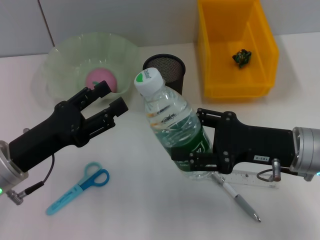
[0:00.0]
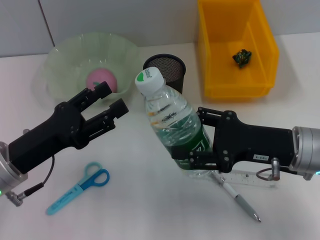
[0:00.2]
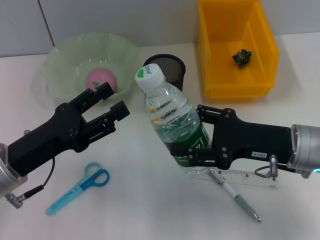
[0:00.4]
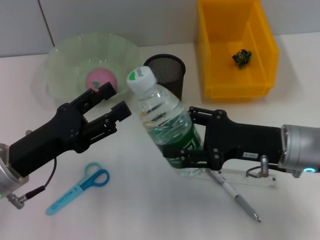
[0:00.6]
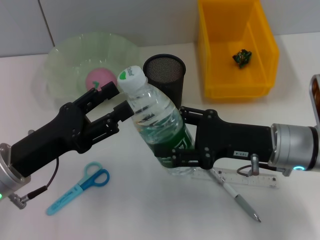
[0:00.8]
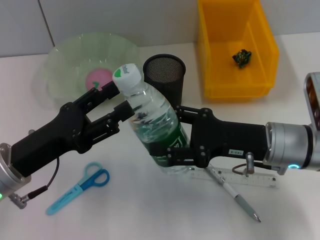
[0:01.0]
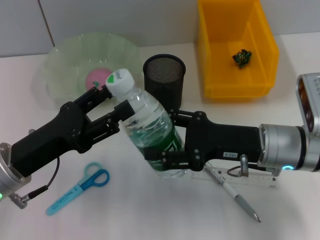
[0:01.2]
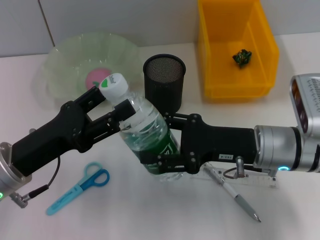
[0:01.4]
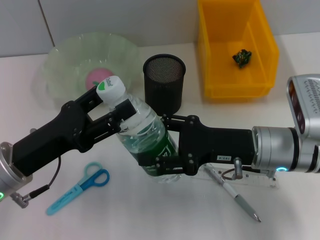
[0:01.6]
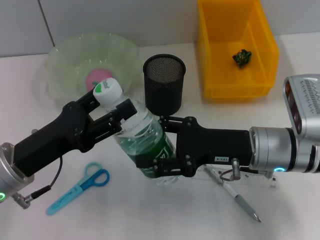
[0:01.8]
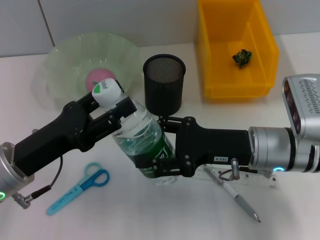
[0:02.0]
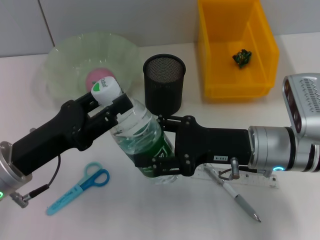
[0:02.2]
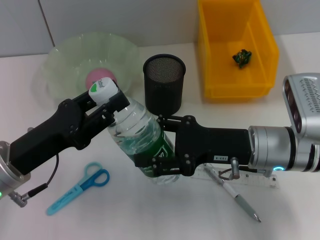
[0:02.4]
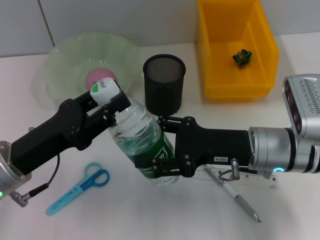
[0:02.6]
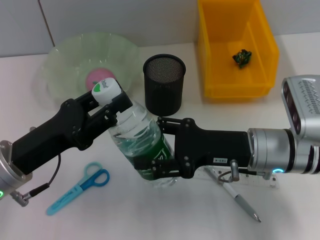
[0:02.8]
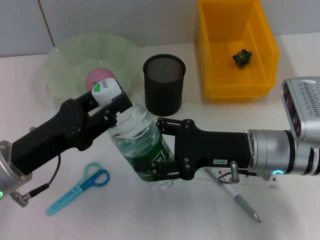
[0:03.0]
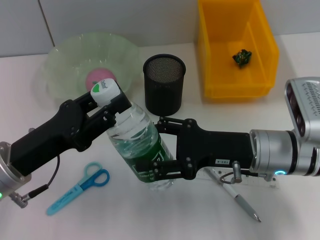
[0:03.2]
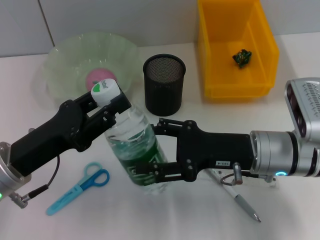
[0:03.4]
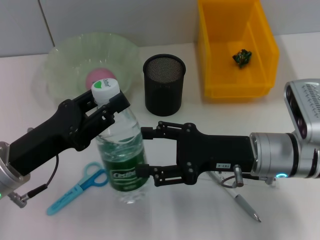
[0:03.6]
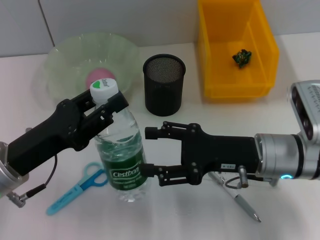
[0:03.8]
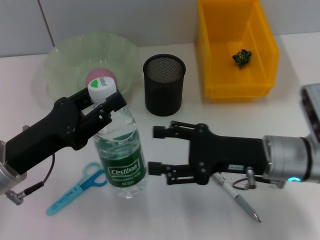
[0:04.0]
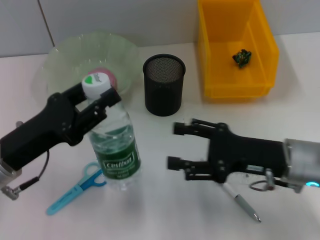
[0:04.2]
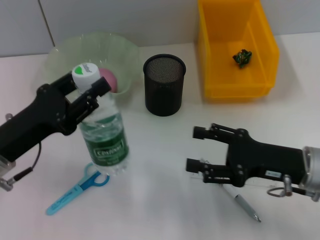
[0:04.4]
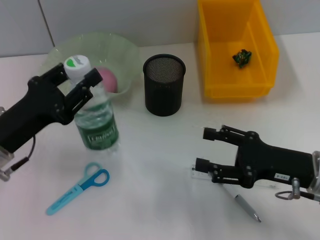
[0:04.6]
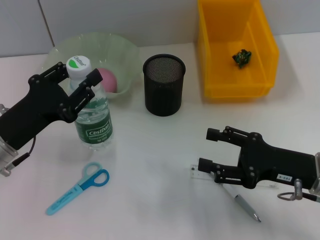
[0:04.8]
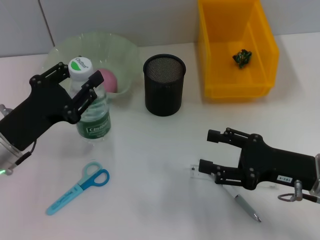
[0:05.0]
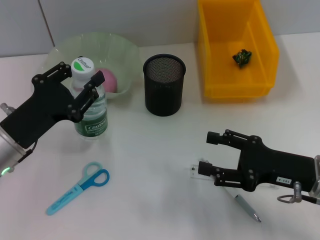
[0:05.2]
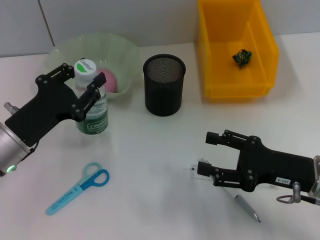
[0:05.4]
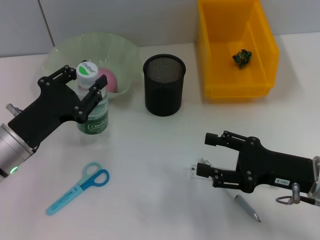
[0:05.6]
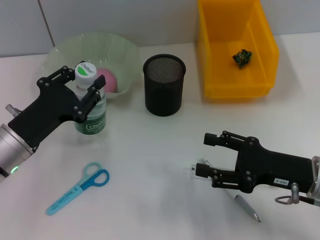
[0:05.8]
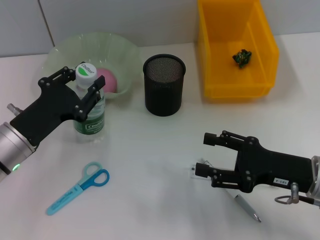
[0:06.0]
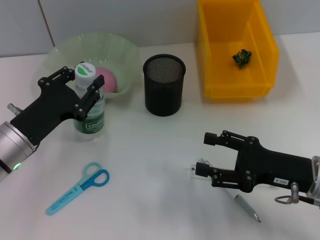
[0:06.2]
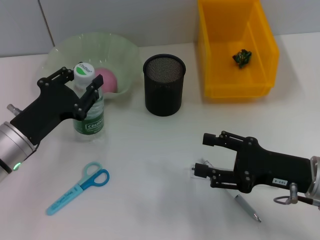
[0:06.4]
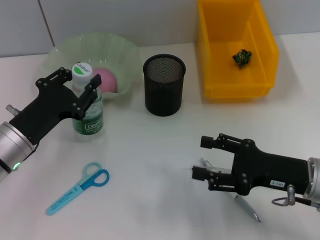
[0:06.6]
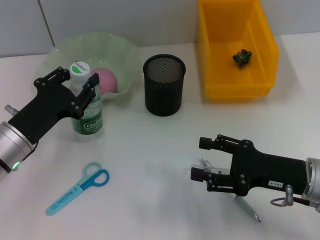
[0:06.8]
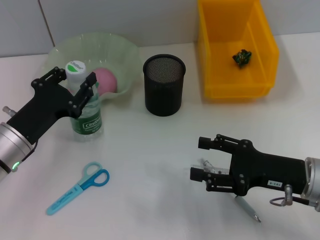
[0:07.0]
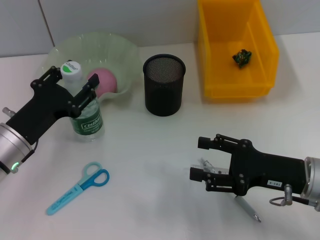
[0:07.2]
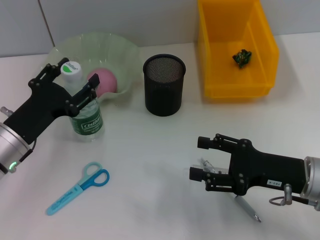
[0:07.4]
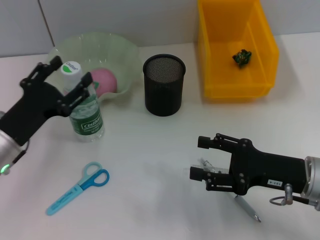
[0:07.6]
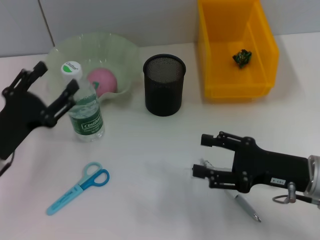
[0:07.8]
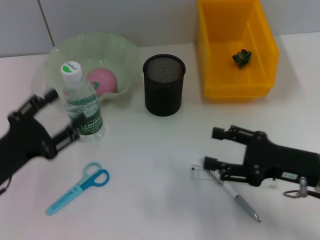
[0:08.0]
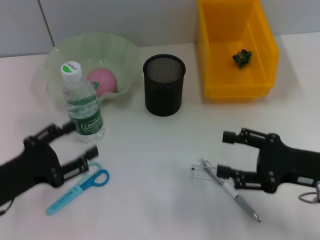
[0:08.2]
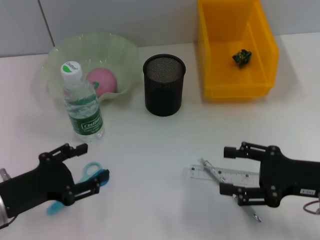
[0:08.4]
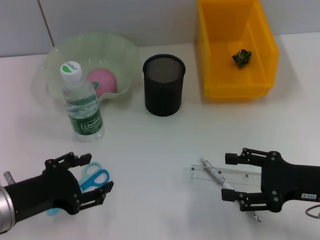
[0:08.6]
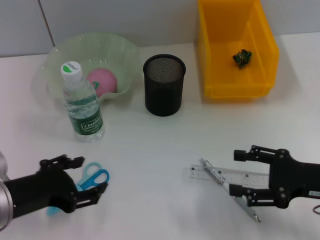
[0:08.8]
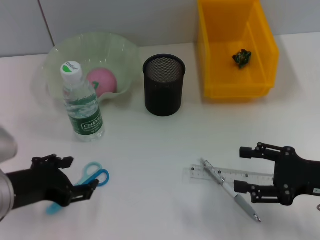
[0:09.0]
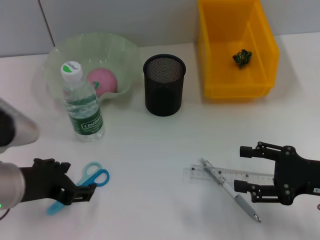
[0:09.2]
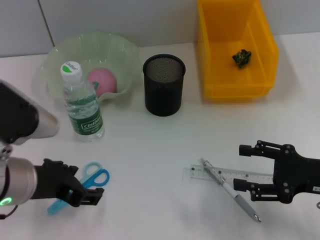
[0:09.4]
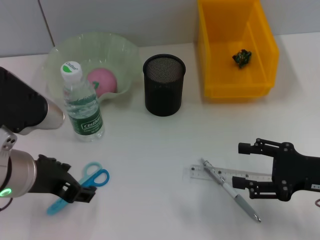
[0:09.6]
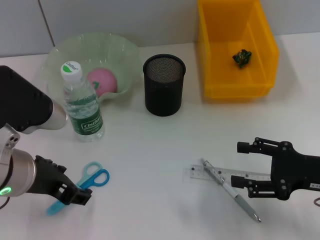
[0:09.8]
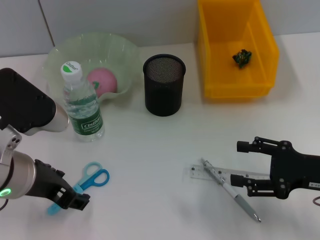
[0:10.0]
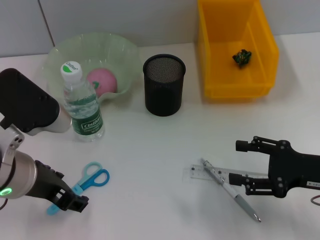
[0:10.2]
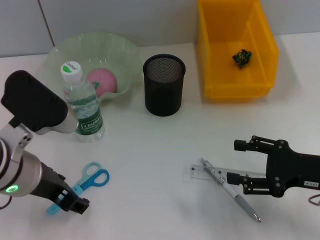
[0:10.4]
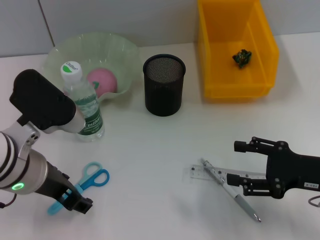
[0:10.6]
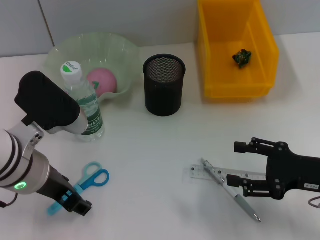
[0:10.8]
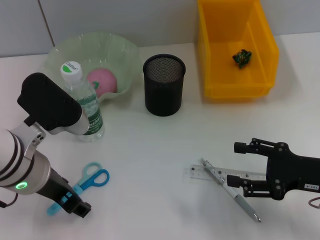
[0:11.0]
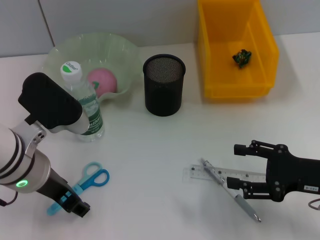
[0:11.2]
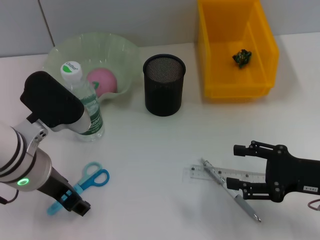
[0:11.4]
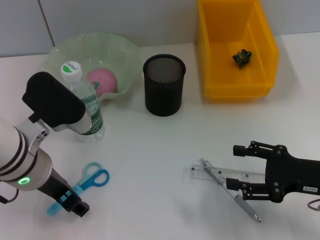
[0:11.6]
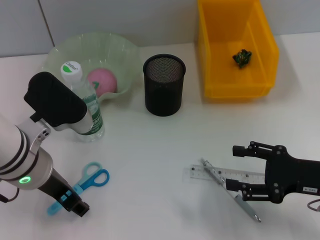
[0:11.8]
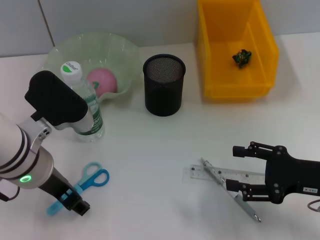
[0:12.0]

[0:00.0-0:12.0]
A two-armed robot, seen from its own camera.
Step, 0:00.0 to 0:03.8: Pass the water bottle from the right hand to the left hand.
Step, 0:04.0 to 0:07.6: Place the water bottle on the table with the left hand.
0:00.0 to 0:01.6: There are only small adjustments of the grippers.
0:01.6 to 0:03.0: The left gripper closes its fingers.
0:03.0 to 0:04.4: The right gripper heads to the right, covering approximately 5 cm.
0:06.0 to 0:07.6: The left gripper opens its fingers.
0:07.6 to 0:09.0: The left gripper shifts some 10 cm backward and upward. Meanwhile the right gripper is displaced to the right by approximately 5 cm.
0:09.0 to 0:10.4: The left gripper is displaced to the right by roughly 5 cm.
0:10.4 to 0:12.0: There are only small adjustments of the grippers.

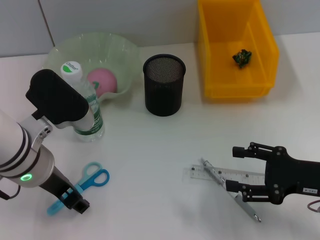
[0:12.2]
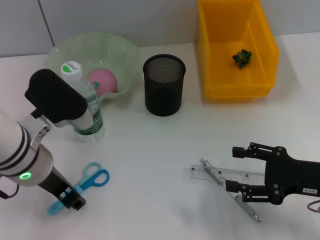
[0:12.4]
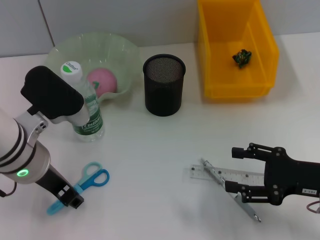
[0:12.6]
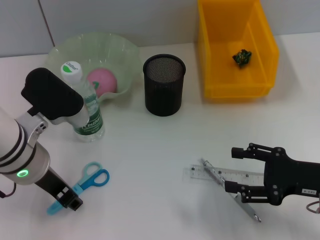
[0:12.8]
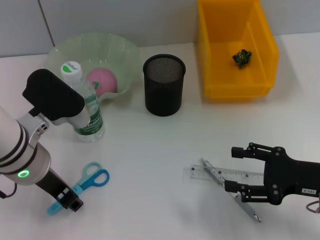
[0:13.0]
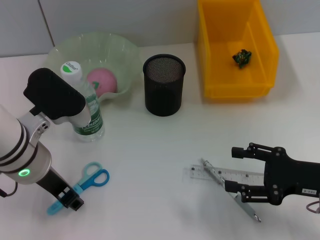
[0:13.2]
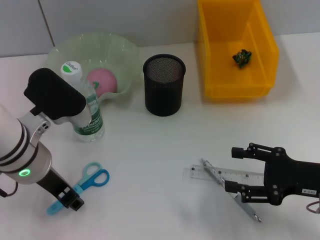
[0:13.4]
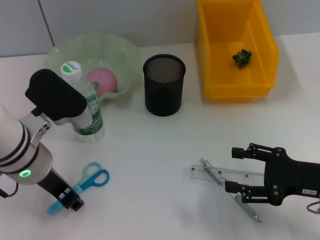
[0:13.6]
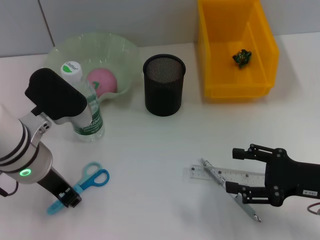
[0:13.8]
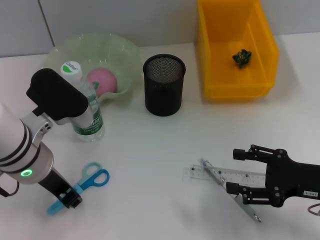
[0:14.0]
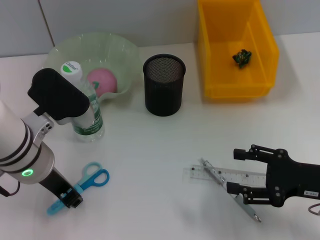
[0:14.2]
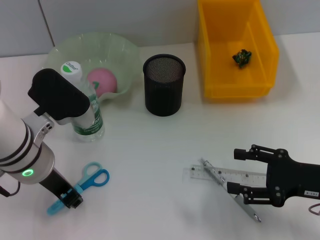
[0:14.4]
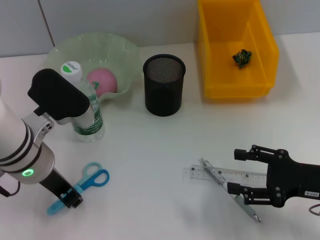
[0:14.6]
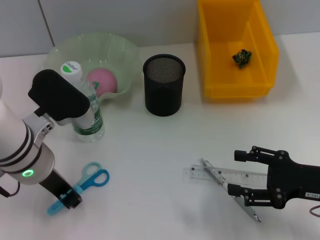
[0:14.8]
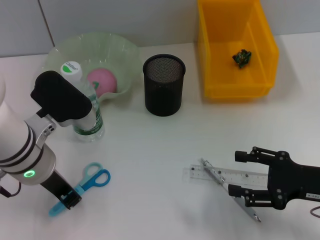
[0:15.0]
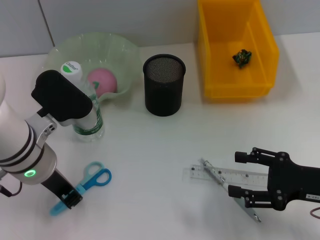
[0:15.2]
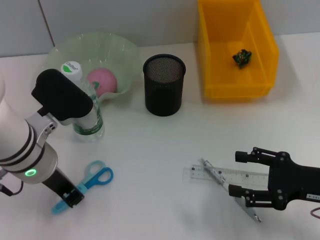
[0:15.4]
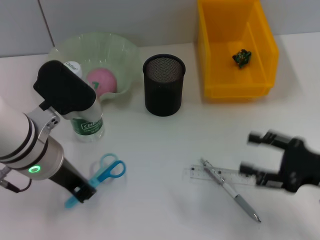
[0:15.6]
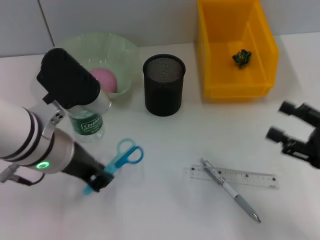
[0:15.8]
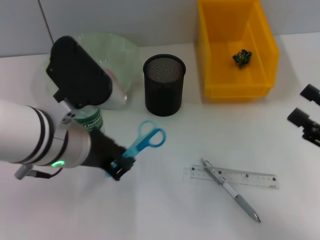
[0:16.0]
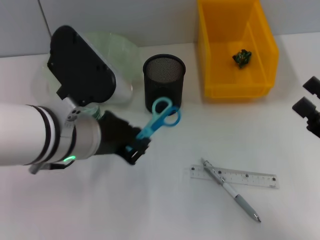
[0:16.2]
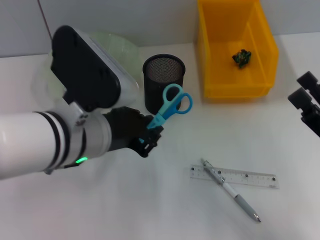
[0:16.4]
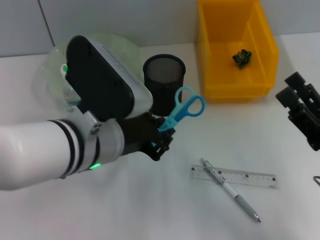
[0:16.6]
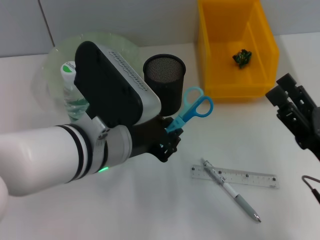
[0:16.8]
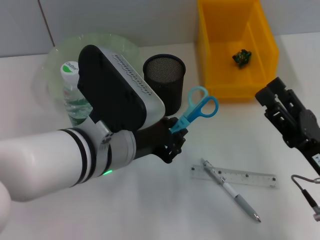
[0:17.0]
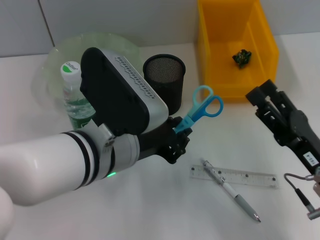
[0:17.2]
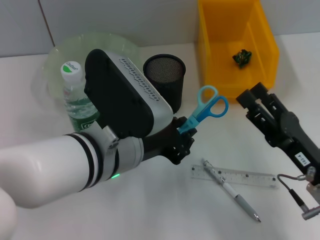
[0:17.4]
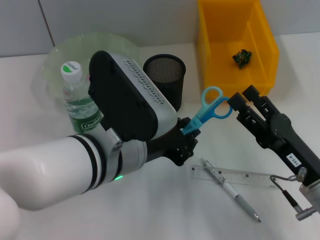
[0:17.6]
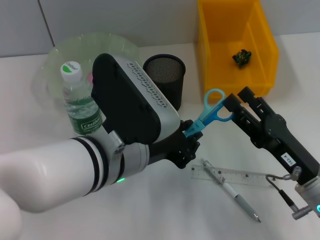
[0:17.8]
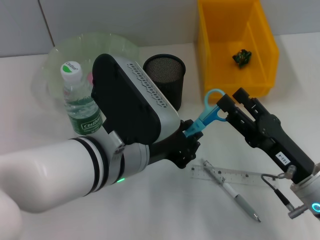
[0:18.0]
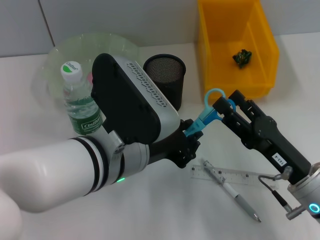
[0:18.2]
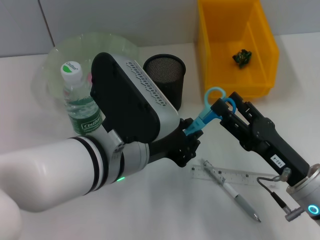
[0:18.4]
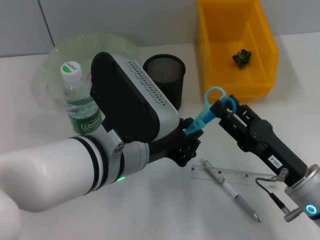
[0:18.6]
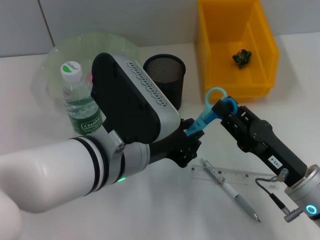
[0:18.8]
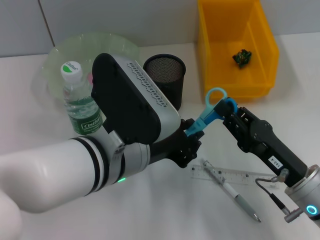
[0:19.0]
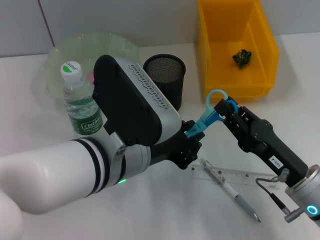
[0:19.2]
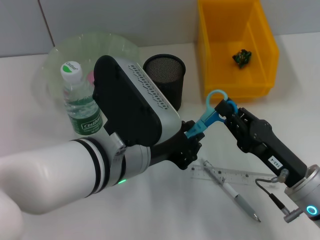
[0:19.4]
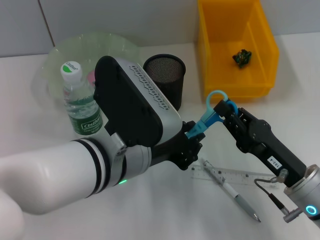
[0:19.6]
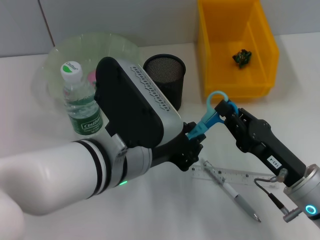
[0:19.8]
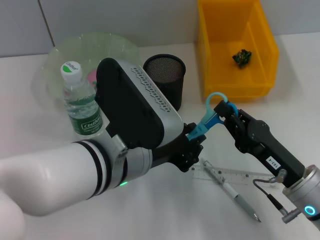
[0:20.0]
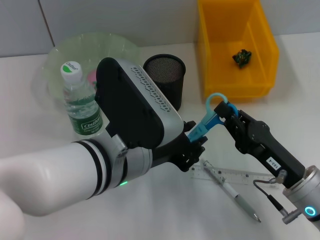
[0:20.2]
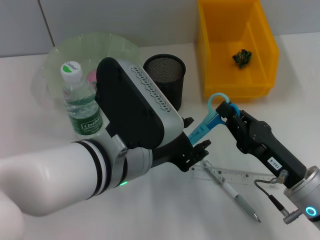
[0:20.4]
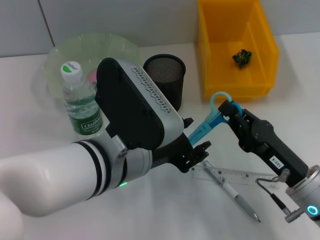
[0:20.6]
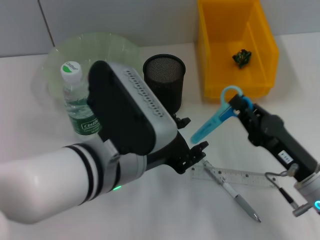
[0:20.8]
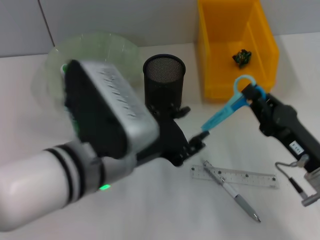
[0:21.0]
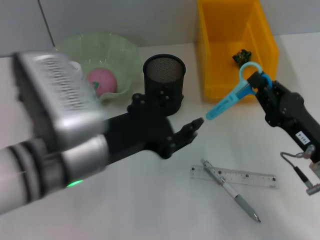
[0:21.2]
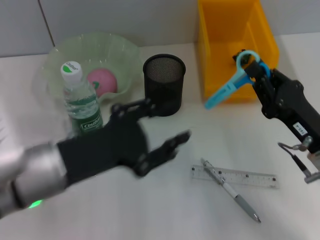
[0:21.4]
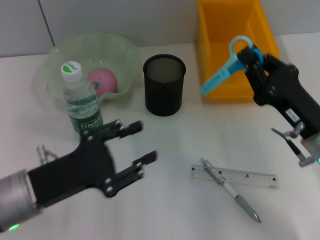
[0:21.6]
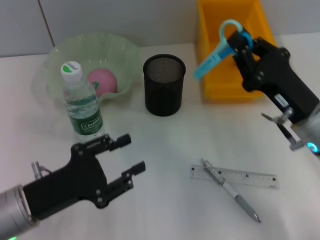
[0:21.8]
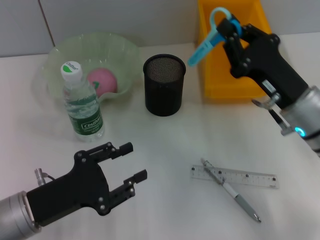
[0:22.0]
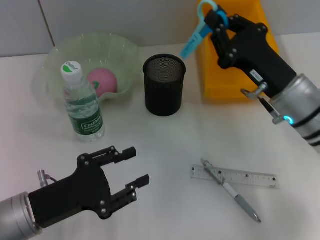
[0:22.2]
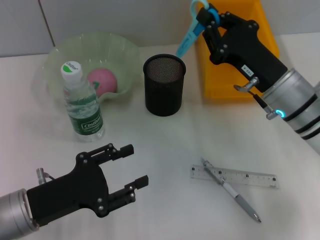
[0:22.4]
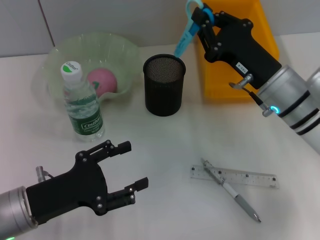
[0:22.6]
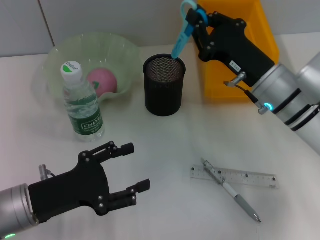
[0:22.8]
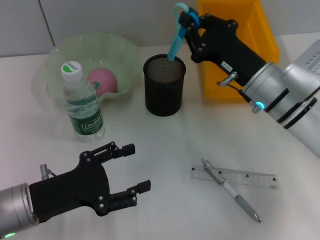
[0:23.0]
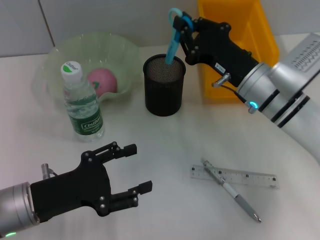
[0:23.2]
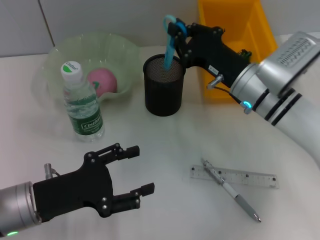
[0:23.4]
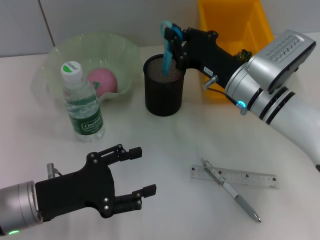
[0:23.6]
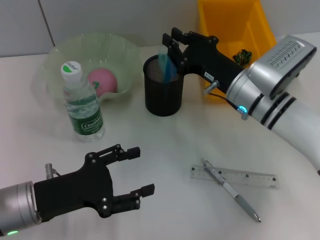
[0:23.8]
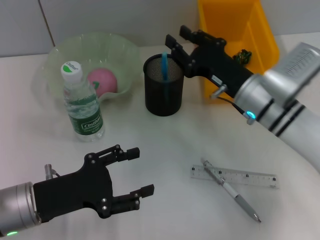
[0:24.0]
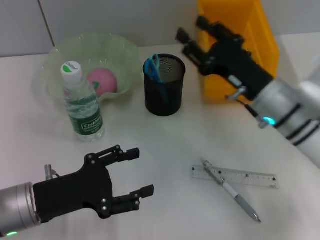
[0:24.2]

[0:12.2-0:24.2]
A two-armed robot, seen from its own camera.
Step, 0:12.2 to 0:15.4: Grab the blue scissors with the left hand.
Step, 0:15.8 to 0:20.8: Pass the blue scissors from the left hand to the right hand.
Step, 0:21.0 to 0:24.2: Place the blue scissors into the pen holder with the right hand.
0:12.2 to 0:13.8: The left gripper closes its fingers.
0:13.8 to 0:15.2: The left gripper closes.
0:15.2 to 0:16.6: The left gripper heads to the right, covering about 5 cm.
0:16.6 to 0:18.2: The right gripper goes roughly 5 cm to the left.
0:18.2 to 0:19.8: The right gripper closes up.
0:19.8 to 0:21.2: The left gripper heads to the left, covering some 5 cm, and opens.
0:21.2 to 0:22.6: The left gripper heads downward and to the left, covering roughly 15 cm, while the right gripper is displaced forward and to the left by some 10 cm.
0:22.6 to 0:24.2: There are only small adjustments of the grippers.
